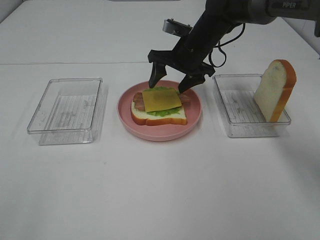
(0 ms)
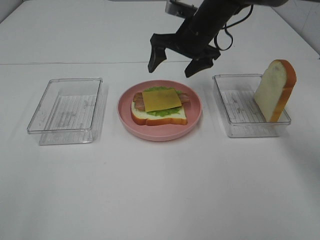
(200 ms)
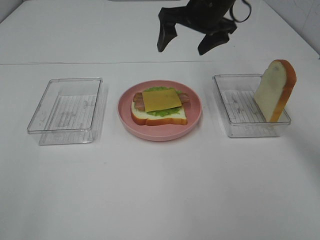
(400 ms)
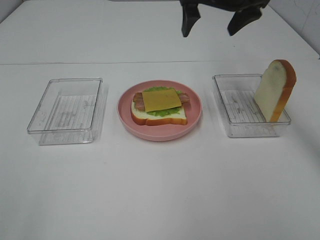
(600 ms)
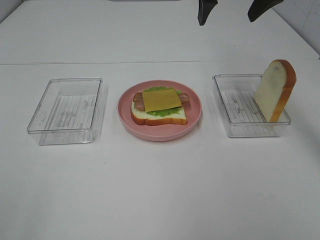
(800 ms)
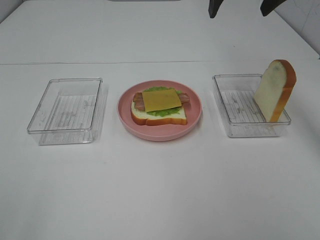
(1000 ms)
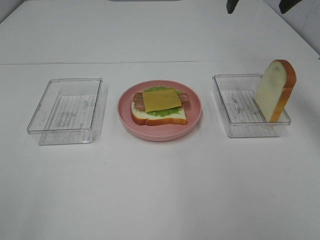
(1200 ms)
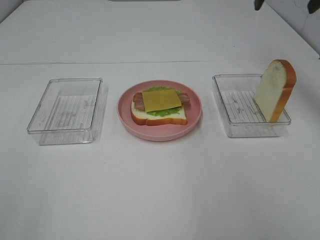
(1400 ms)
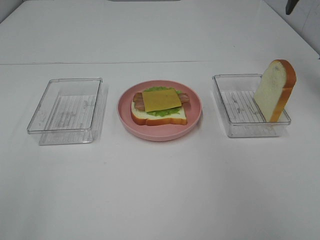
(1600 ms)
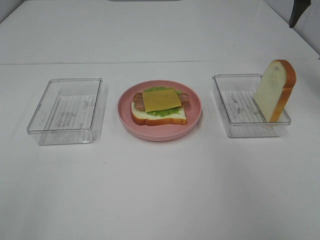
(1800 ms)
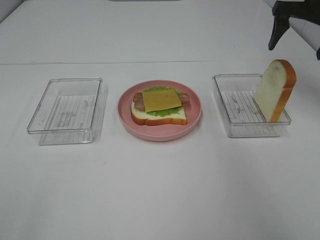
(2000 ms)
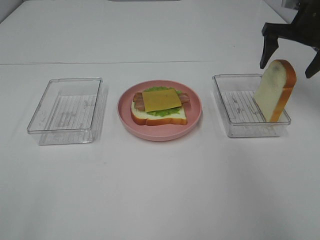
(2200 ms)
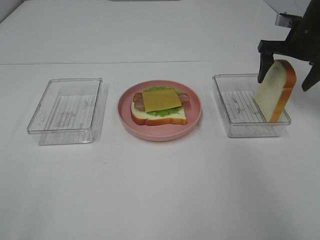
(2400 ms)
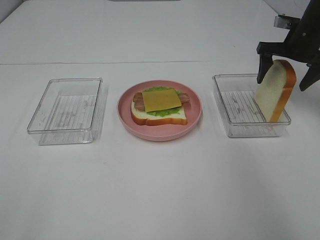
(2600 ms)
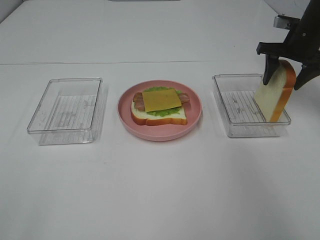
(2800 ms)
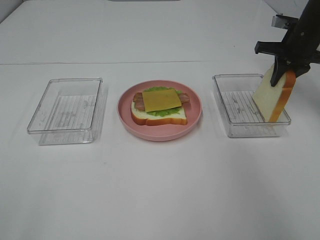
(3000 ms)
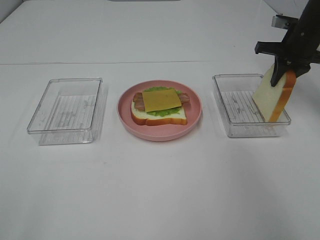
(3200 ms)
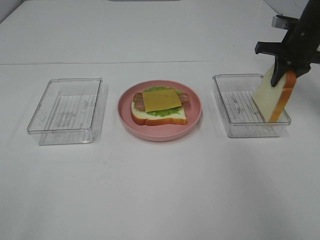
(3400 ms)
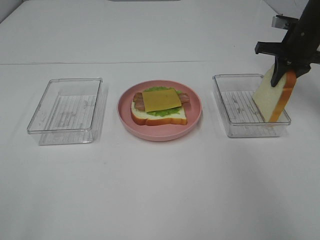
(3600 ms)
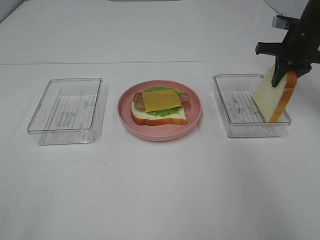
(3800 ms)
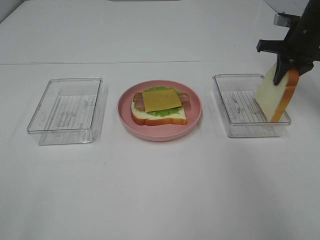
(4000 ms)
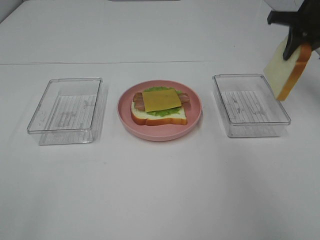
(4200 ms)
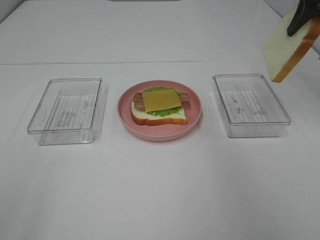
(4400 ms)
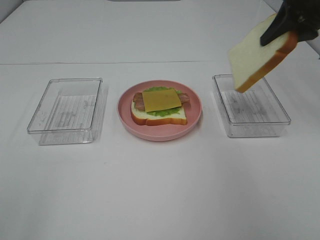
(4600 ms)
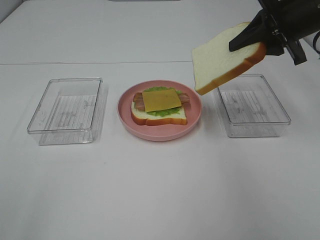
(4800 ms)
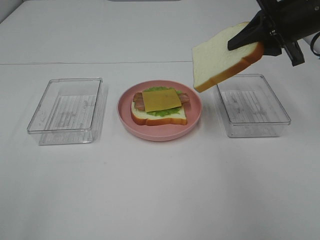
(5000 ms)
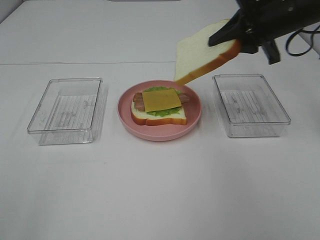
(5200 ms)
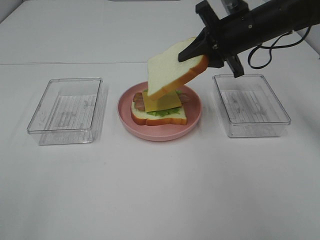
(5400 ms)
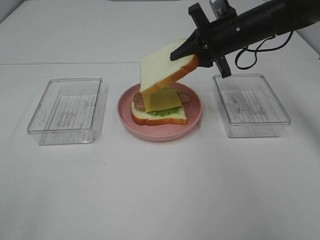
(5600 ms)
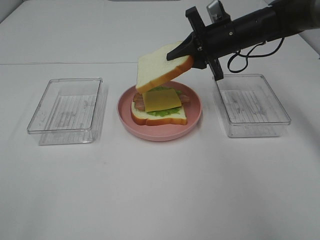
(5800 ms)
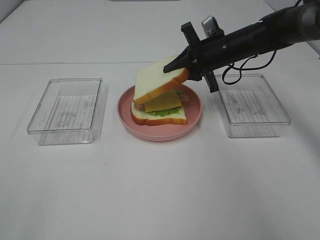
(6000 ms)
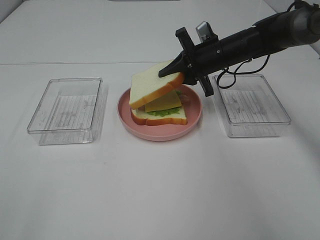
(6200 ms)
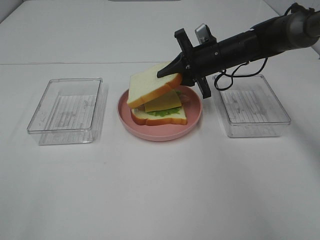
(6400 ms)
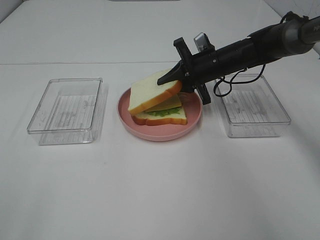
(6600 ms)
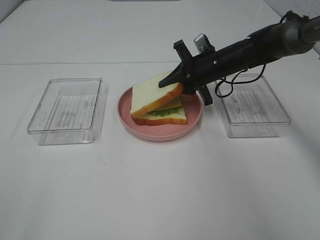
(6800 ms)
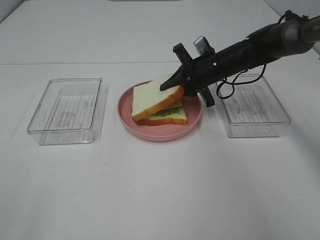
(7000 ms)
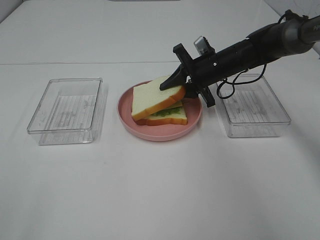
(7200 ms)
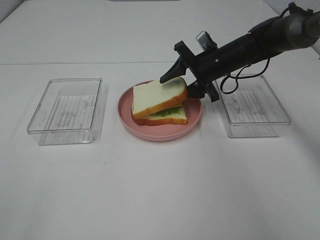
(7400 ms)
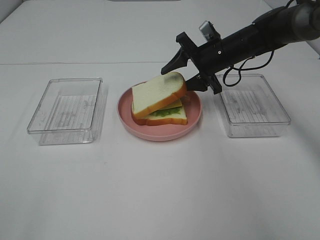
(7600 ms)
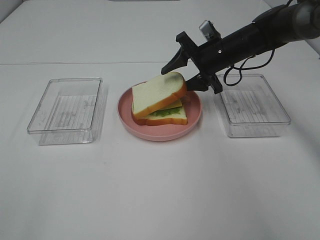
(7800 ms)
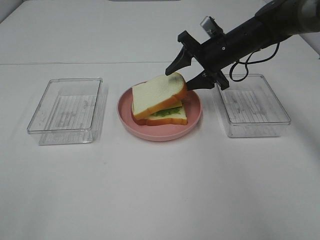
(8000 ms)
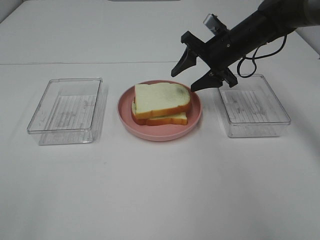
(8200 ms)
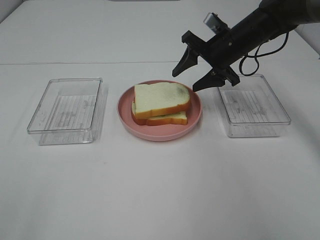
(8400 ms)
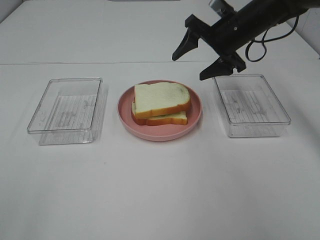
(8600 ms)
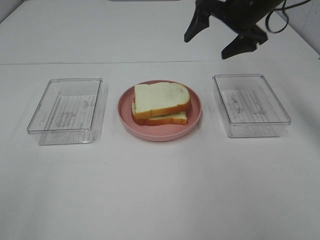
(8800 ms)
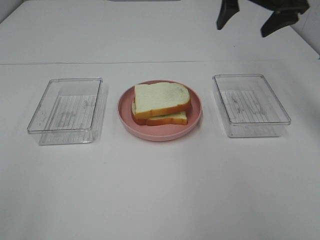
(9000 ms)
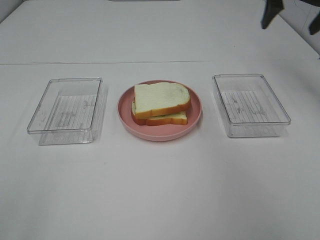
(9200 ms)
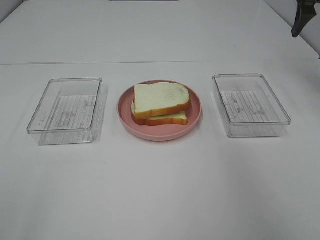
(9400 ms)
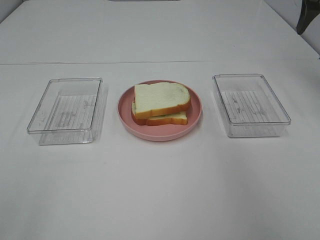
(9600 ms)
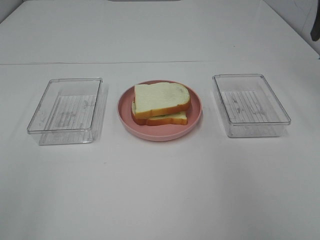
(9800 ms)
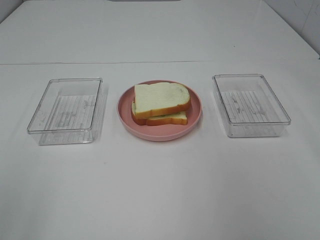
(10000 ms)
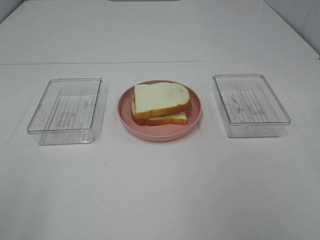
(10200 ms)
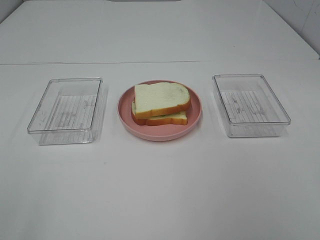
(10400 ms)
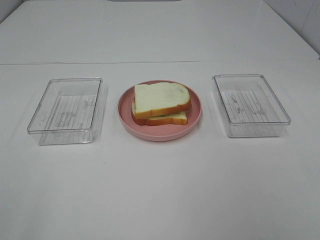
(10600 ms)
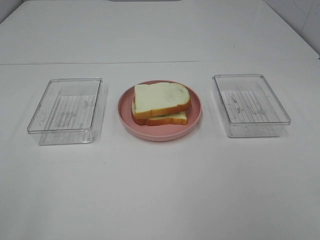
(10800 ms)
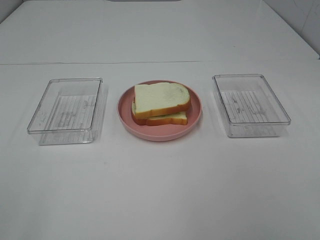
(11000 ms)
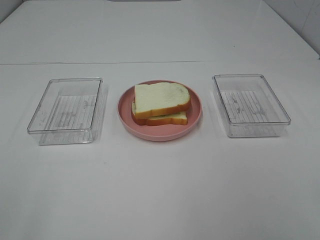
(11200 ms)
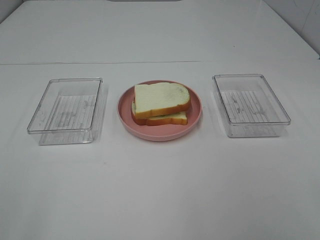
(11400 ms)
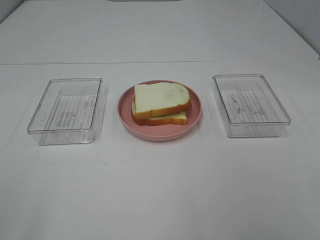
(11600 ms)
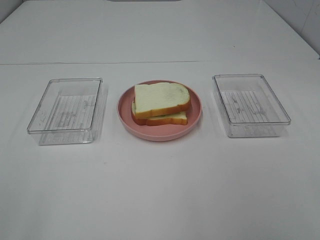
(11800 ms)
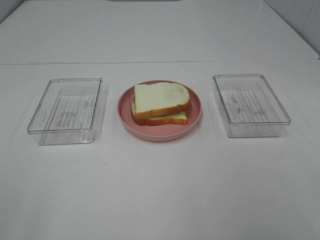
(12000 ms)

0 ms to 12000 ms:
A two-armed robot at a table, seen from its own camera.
Task of the whole recording: Make sandwiches.
Step, 400 ms to 3800 ms: Right hand:grab the bread slice.
Step, 4000 ms to 8600 ms: Right hand:place the bread slice on the cheese slice.
0 ms to 1600 ms: The right gripper is displaced to the right and upward by approximately 30 cm.
1600 ms to 3000 ms: The right gripper is displaced downward by roughly 15 cm, and closes up.
3000 ms to 4400 ms: The right gripper goes about 15 cm upward and backward.
4400 ms to 6000 ms: The right gripper is displaced downward and to the left by roughly 20 cm.
6000 ms to 7600 ms: The right gripper opens.
7600 ms to 9000 ms: The right gripper moves upward and to the right, approximately 20 cm, and opens up.
9000 ms to 10400 ms: The right gripper heads backward, covering about 35 cm.

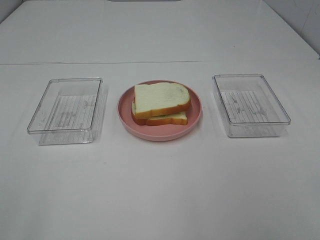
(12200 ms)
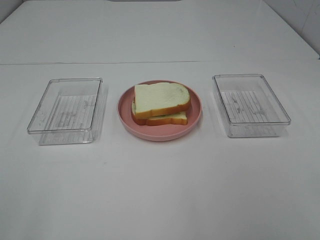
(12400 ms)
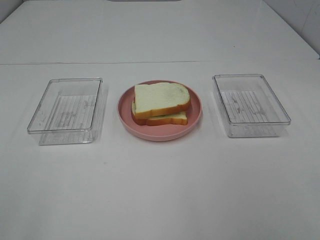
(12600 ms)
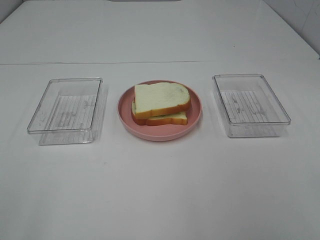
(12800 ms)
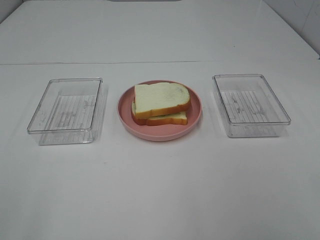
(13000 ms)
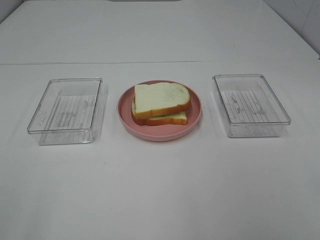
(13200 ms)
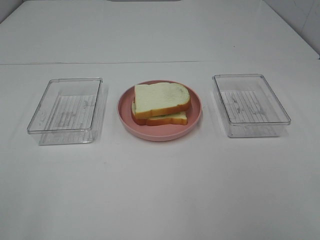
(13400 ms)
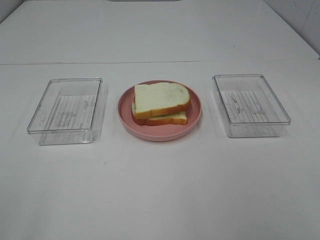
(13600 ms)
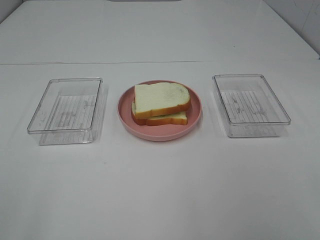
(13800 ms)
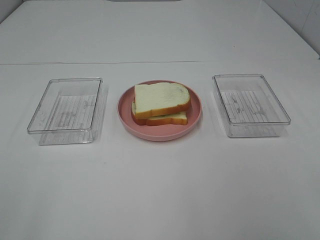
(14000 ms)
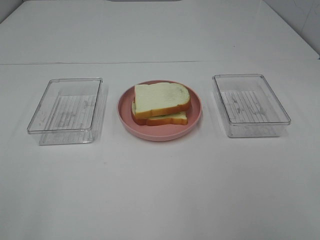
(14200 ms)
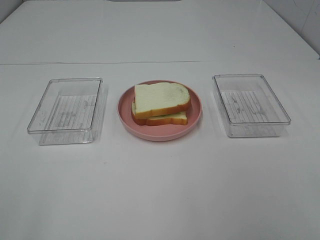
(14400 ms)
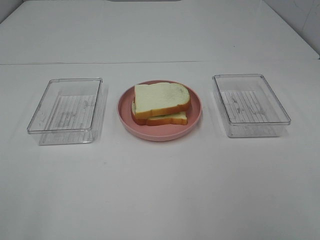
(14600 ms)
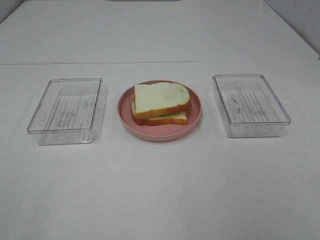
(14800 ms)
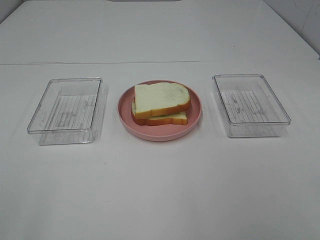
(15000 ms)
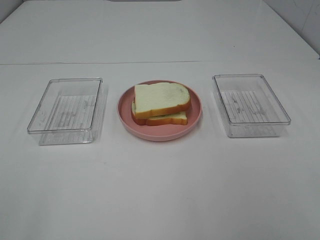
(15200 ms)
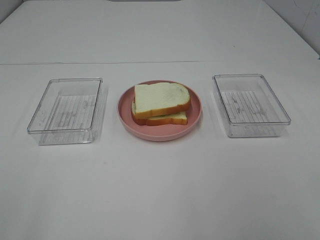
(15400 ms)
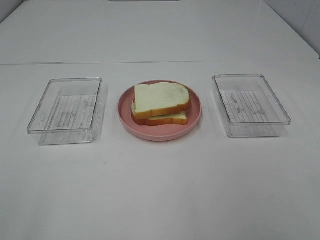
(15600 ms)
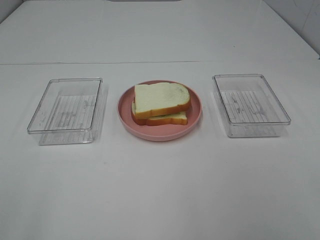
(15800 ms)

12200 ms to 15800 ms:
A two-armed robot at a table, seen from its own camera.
Task of the whole recording: Make sandwiches.
12200 ms to 15800 ms: Both grippers stay about where they are.
